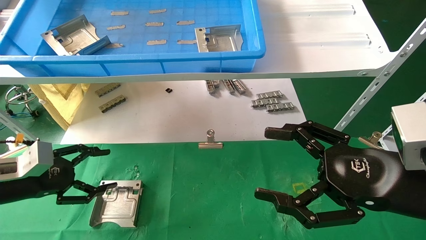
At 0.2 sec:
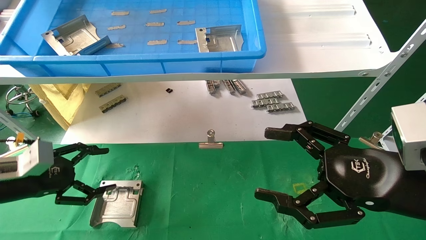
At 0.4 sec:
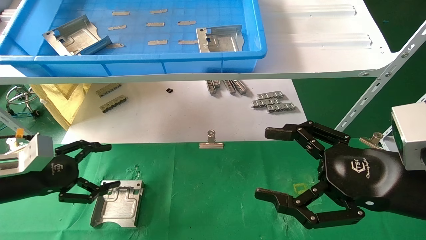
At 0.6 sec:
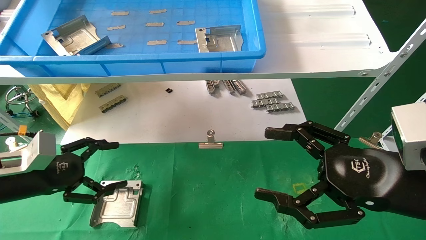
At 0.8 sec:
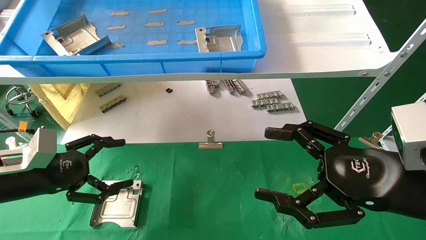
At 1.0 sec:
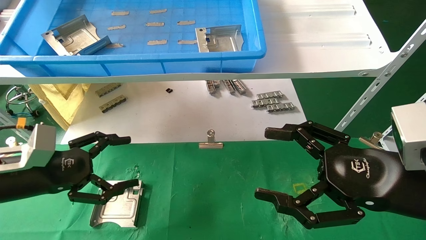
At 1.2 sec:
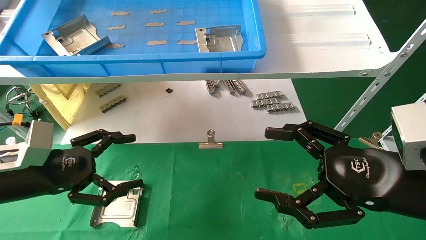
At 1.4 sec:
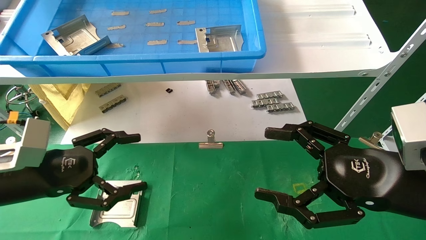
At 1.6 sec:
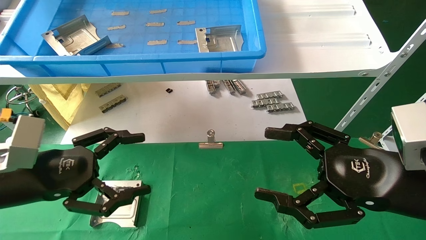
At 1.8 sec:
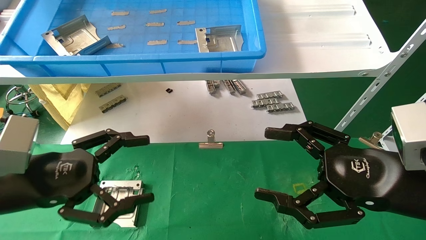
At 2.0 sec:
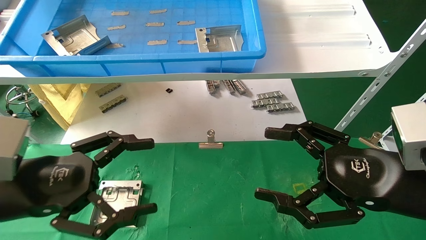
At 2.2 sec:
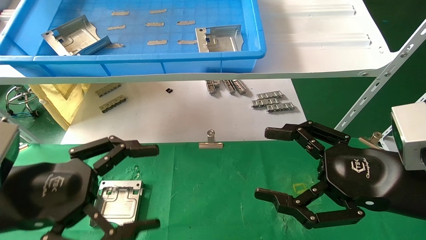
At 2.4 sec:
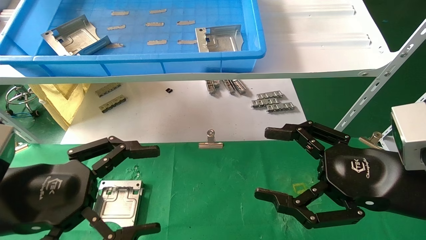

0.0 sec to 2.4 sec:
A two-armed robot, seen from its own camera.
Task of the whole recording: use the mechanical arm to pick up the parts and place them on the table.
0.0 sec to 1.2 sec: The left gripper travels to the right by roughly 5 cm.
1.2 sec to 2.4 sec: The left gripper goes some 10 cm backward and to the right.
